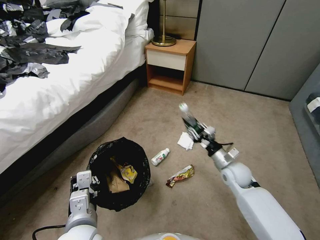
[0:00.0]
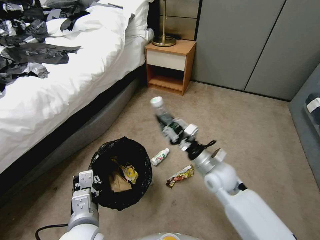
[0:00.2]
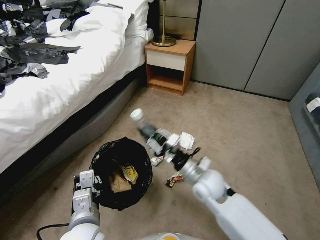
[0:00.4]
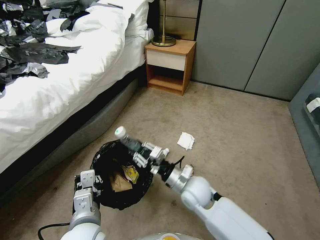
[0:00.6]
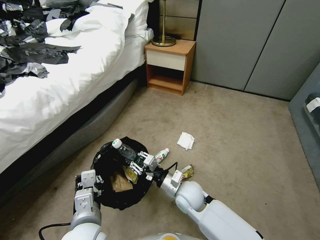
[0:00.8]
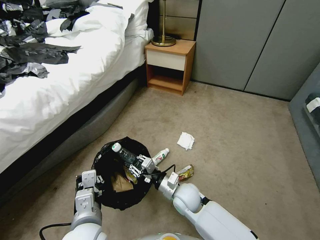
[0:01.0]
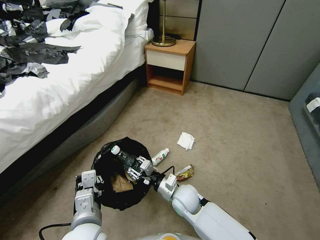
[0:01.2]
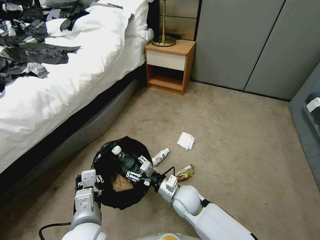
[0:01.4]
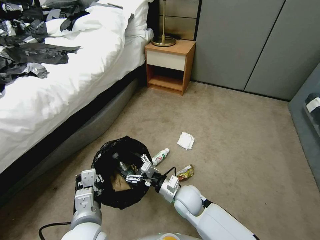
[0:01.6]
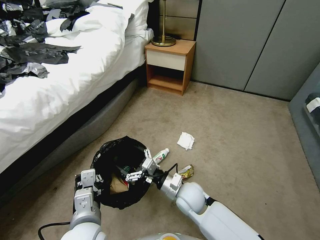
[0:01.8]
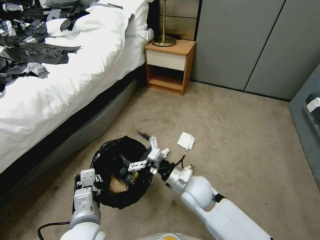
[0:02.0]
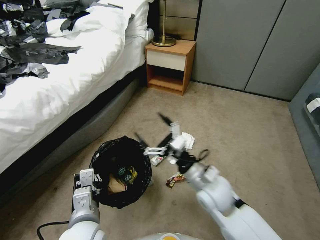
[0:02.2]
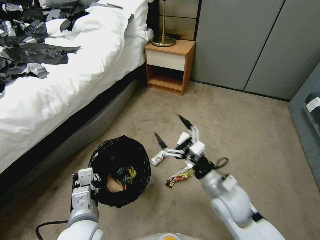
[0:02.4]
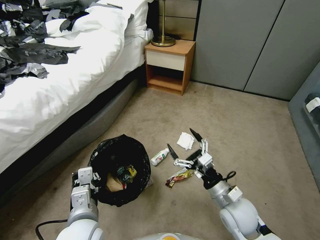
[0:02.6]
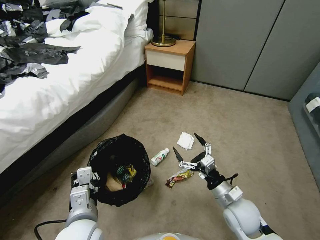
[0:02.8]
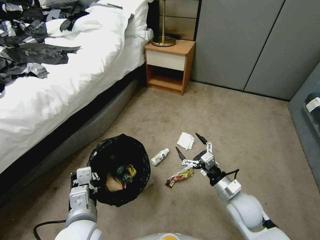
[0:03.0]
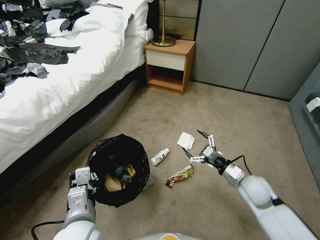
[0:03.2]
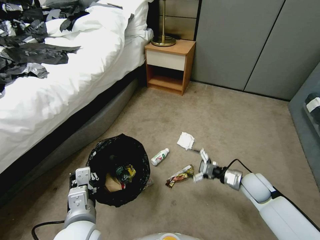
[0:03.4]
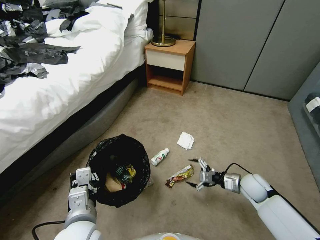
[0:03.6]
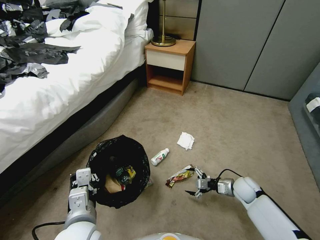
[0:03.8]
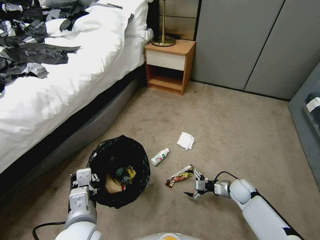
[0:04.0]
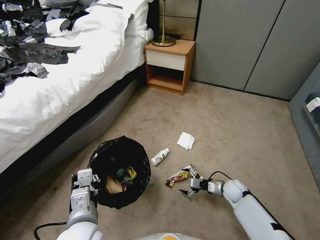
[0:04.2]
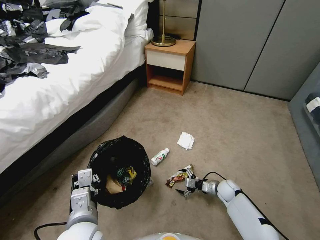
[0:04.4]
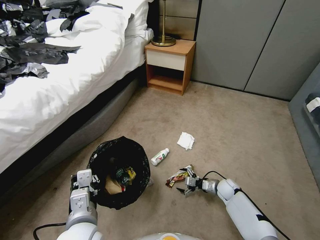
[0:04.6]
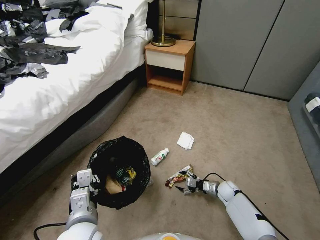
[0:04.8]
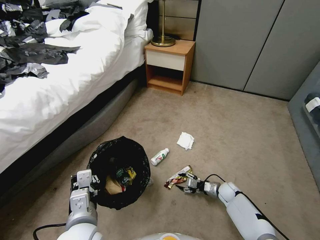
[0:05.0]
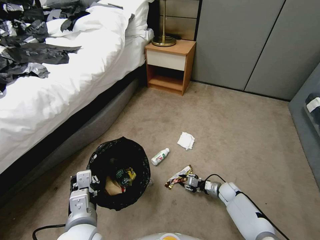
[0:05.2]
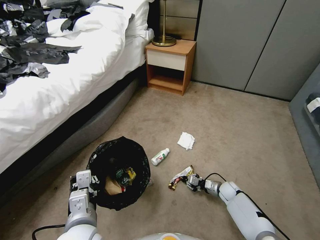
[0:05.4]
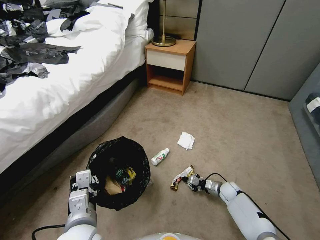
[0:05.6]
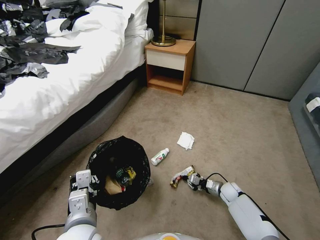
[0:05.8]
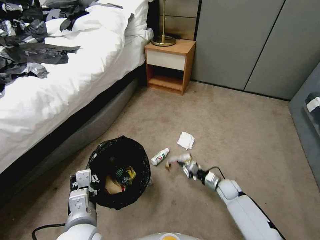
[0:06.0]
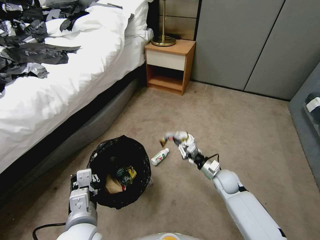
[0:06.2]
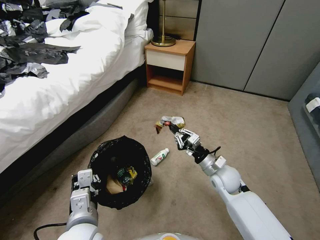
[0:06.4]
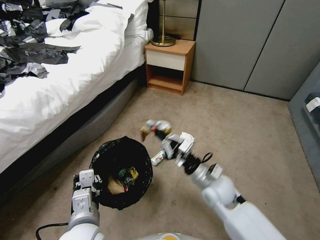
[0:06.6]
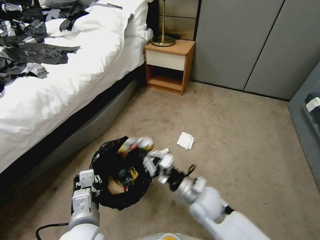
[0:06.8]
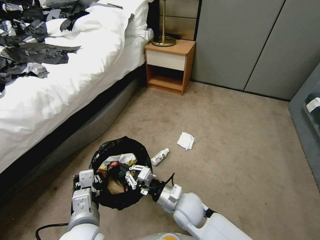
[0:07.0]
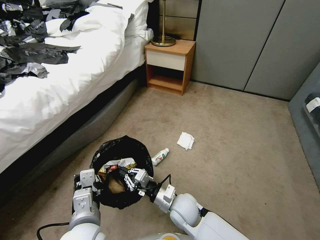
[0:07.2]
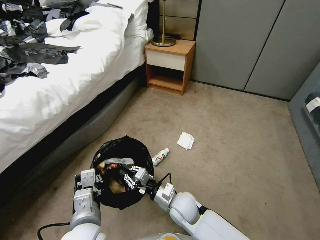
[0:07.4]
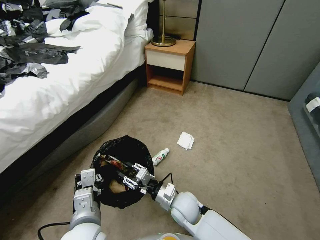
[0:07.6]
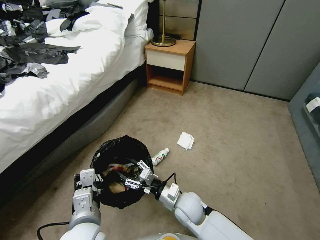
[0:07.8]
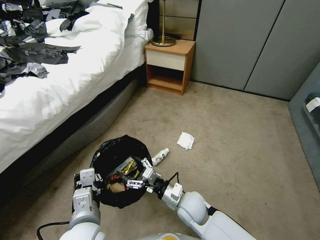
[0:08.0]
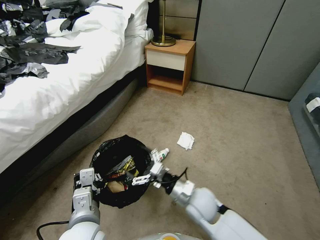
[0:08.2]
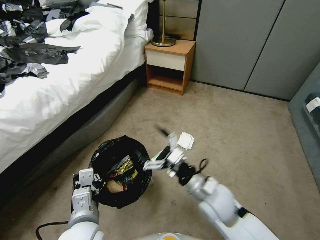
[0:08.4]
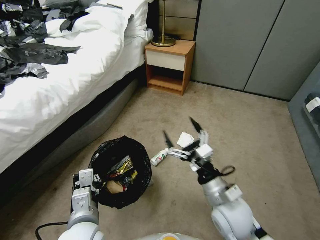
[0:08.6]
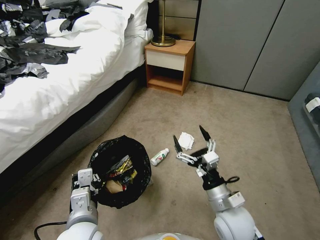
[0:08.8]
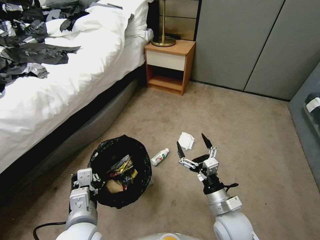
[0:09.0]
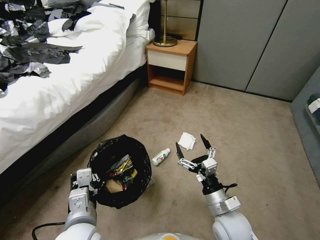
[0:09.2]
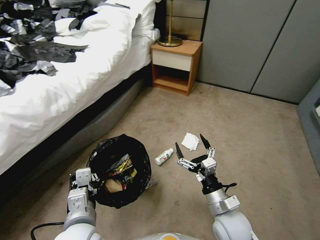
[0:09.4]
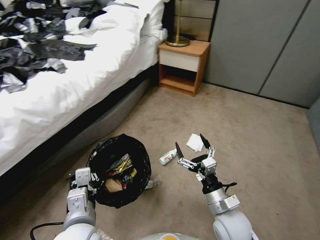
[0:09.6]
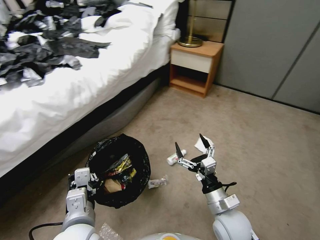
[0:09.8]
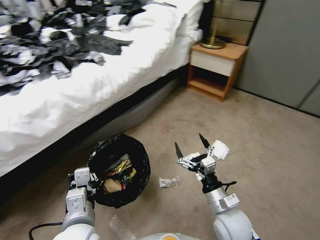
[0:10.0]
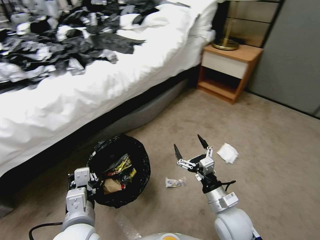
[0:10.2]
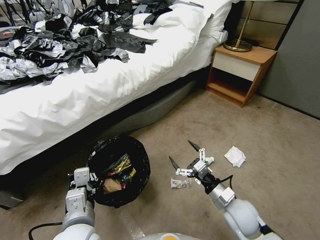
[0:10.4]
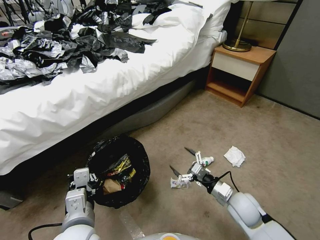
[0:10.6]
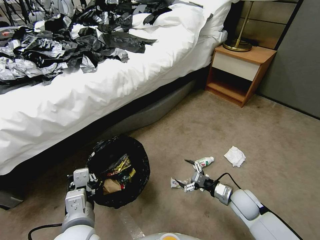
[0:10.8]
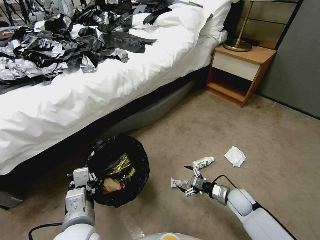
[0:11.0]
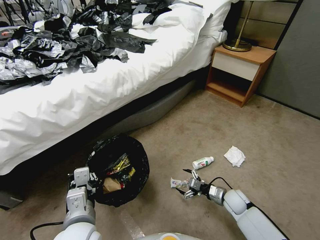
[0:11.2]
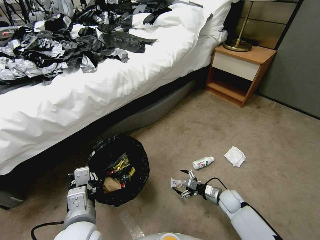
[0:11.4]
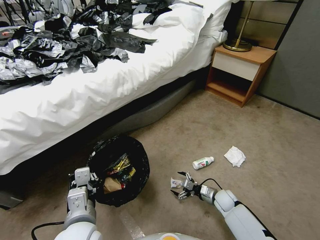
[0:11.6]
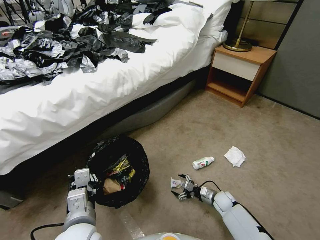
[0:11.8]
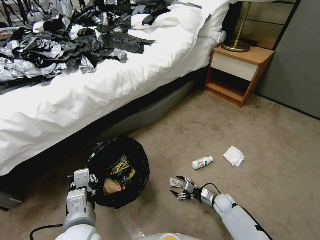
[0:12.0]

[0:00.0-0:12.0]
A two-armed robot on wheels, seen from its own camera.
Task of the whole recording: Pick up the trash bin, then pick up the garbage from the floor and place it into the trash bin.
0:00.0 to 0:01.6: The right gripper moves to the left and backward, roughly 20 cm, and opens.
0:01.6 to 0:03.0: The right gripper travels to the right by about 20 cm.
0:03.0 to 0:04.4: The right gripper shifts approximately 20 cm downward and forward.
0:04.4 to 0:06.0: The right gripper closes its fingers.
0:06.0 to 0:07.6: The right gripper heads to the left, upward and backward, covering about 30 cm.
0:07.6 to 0:09.0: The right gripper travels to the right, backward and upward by some 15 cm, and opens its fingers.
0:09.0 to 0:10.4: The right gripper shifts by roughly 5 cm.
0:10.4 to 0:12.0: The right gripper heads downward, covering about 25 cm.

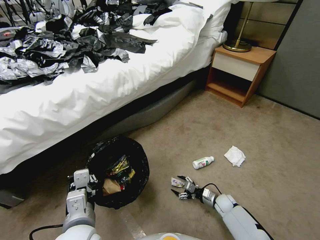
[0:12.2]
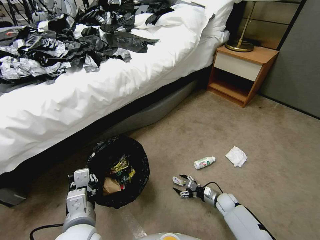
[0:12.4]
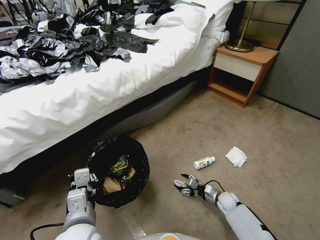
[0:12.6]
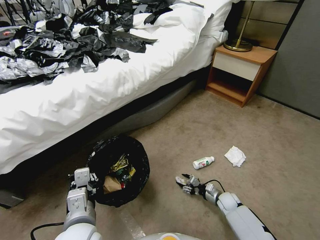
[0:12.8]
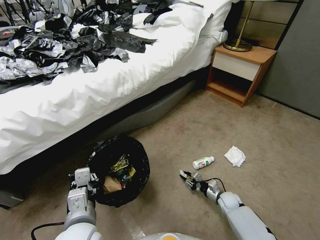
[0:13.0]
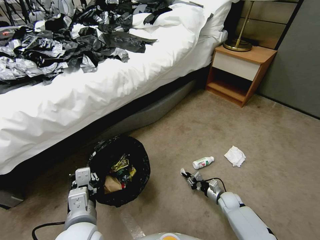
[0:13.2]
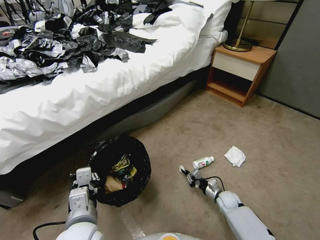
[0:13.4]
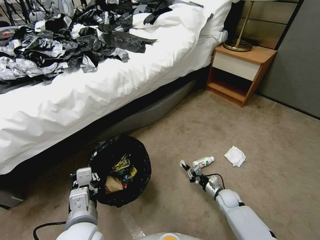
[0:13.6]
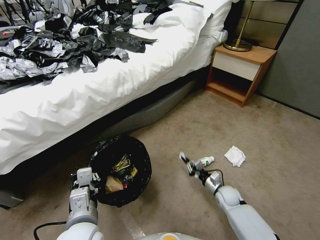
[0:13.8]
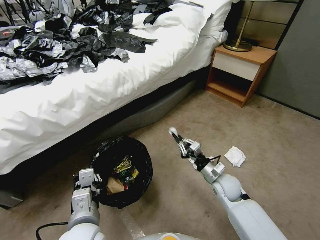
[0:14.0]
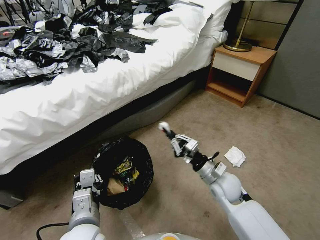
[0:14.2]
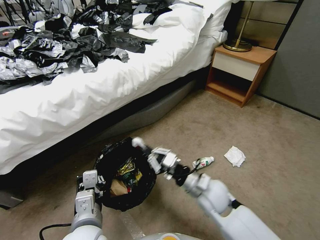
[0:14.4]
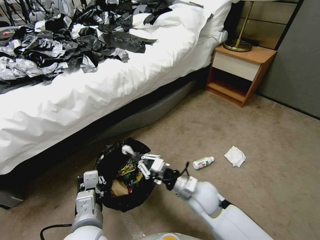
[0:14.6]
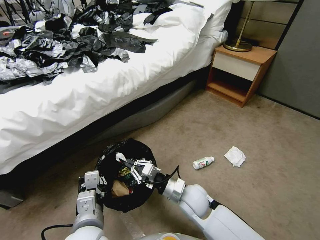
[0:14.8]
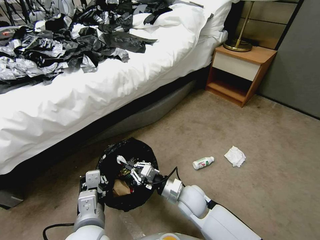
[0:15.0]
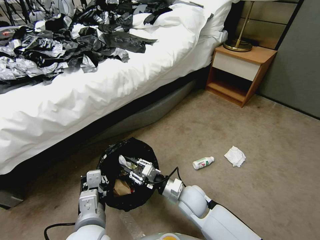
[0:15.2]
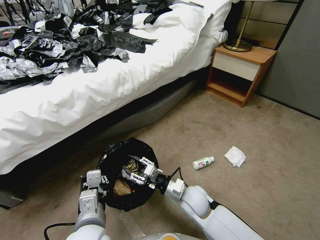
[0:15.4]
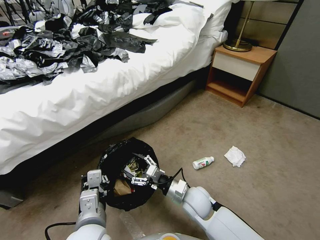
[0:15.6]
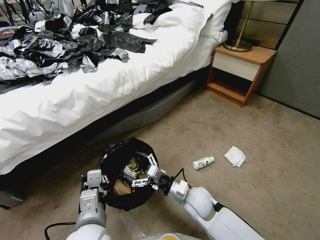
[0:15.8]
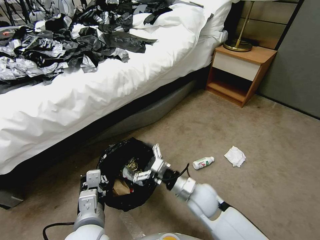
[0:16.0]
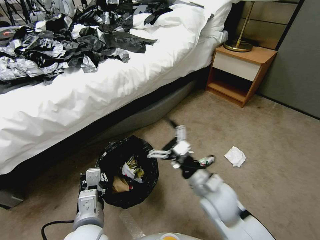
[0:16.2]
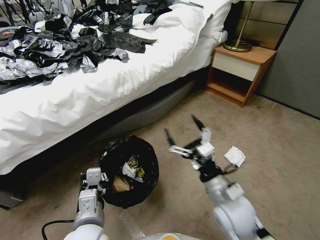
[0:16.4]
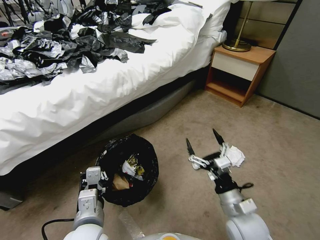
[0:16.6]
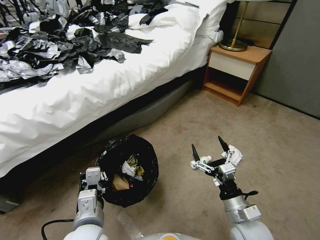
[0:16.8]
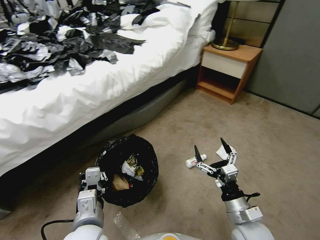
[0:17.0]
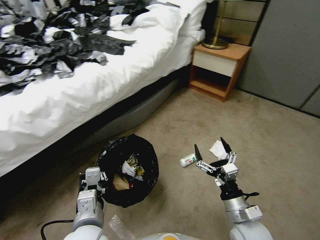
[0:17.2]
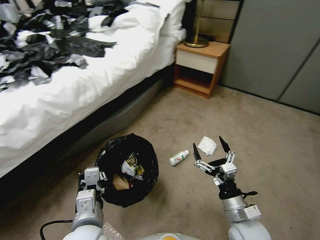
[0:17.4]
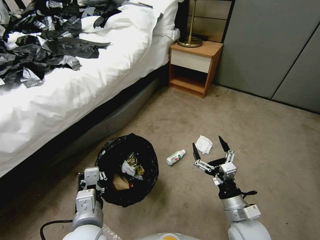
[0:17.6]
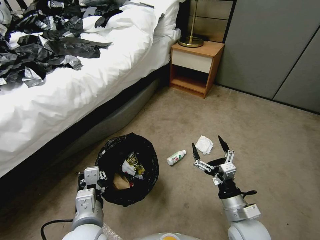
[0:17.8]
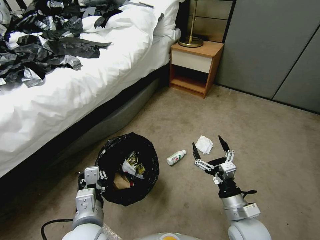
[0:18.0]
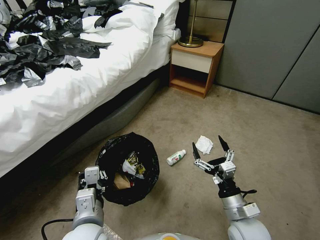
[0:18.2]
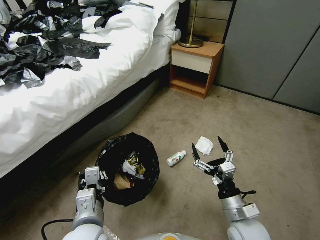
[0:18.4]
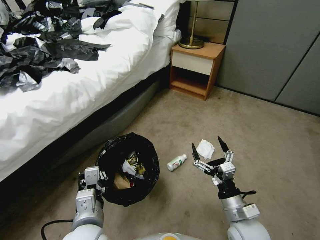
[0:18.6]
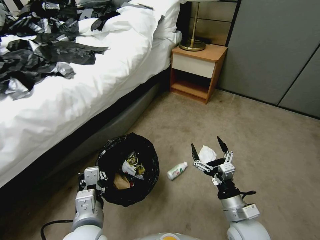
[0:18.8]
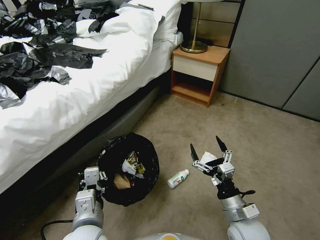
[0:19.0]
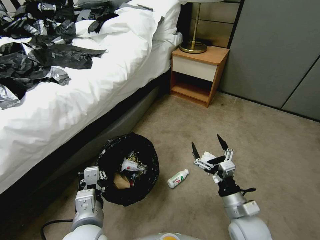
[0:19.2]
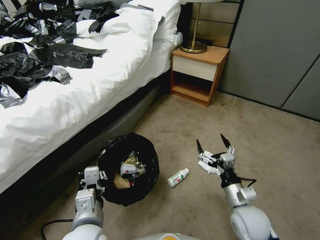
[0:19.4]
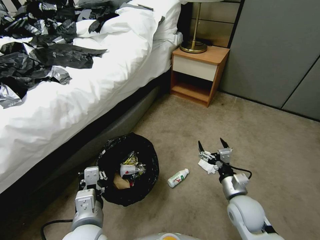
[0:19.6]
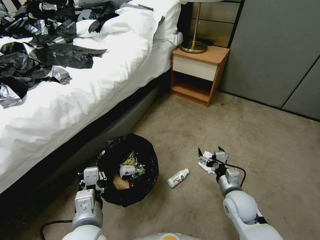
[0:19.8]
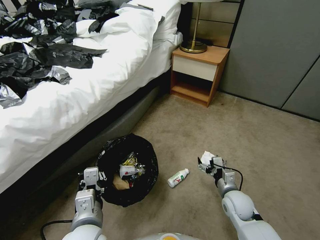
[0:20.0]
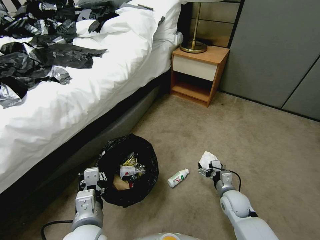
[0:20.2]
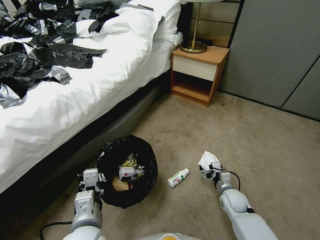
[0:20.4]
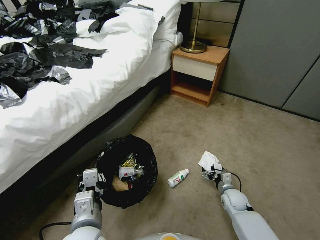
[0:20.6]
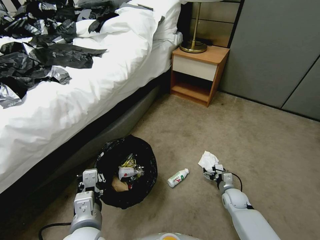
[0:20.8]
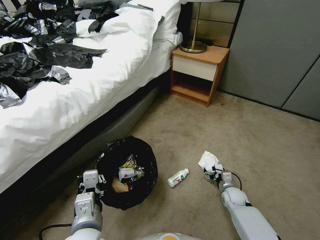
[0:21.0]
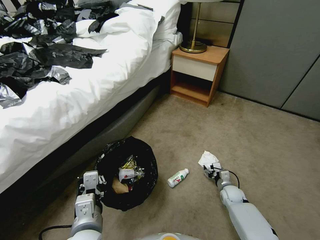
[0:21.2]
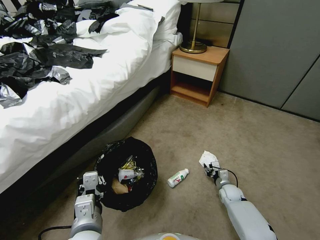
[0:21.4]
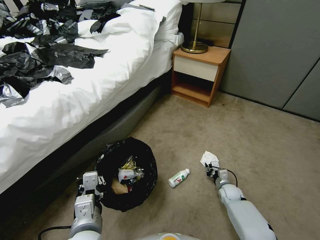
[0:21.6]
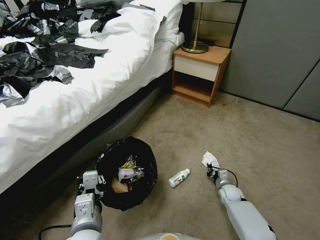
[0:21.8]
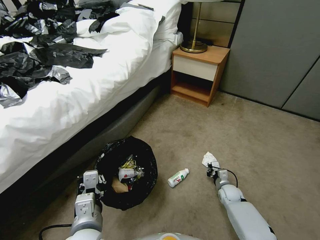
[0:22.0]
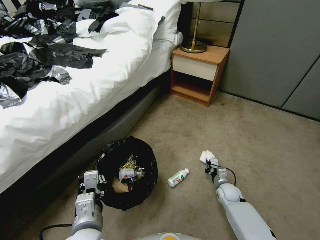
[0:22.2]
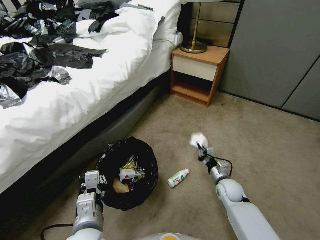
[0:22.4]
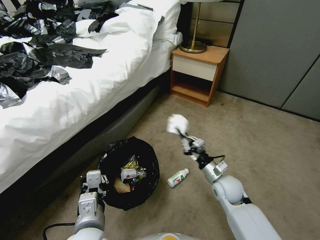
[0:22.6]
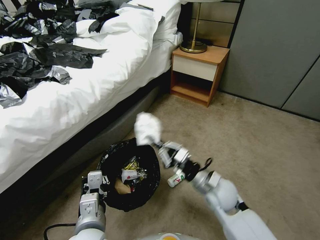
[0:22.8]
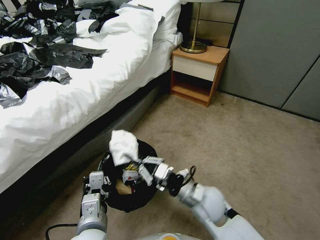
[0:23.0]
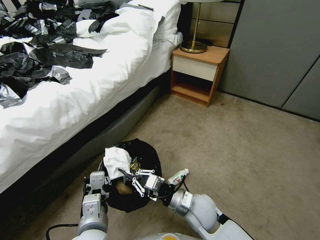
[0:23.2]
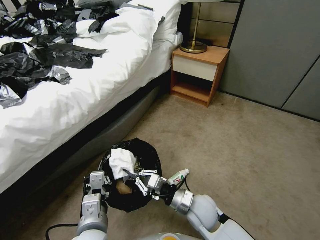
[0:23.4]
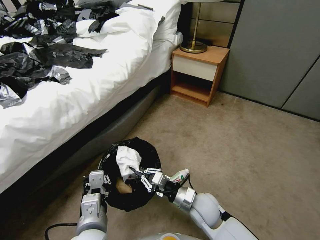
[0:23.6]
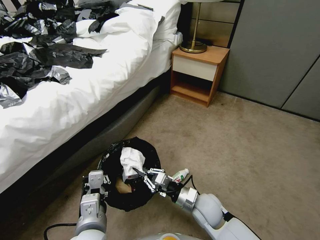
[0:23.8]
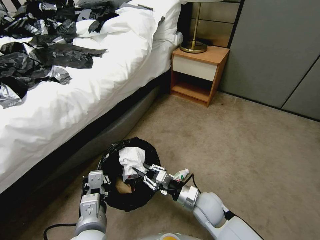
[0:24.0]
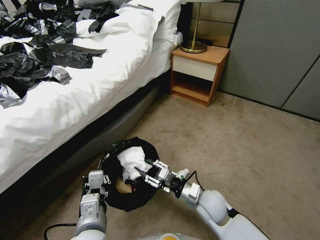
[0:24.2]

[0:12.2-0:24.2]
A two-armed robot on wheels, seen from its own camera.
Task of the whole recording: Pick up the trash bin, then pick up the garbage from the floor and place it into the trash bin.
0:12.2 to 0:13.8: The right gripper is displaced upward by roughly 5 cm, and closes its fingers.
0:13.8 to 0:15.2: The right gripper shifts some 25 cm to the left and upward.
0:15.2 to 0:16.6: The right gripper shifts approximately 15 cm to the right, backward and upward, and opens its fingers.
0:18.2 to 0:19.8: The right gripper heads forward, covering some 10 cm.
0:19.8 to 0:21.2: The right gripper moves downward and forward, about 20 cm.
0:21.2 to 0:22.6: The right gripper moves upward and to the left, some 20 cm, and closes up.
0:22.6 to 0:24.2: The right gripper travels to the left and backward by approximately 10 cm, and opens its fingers.
